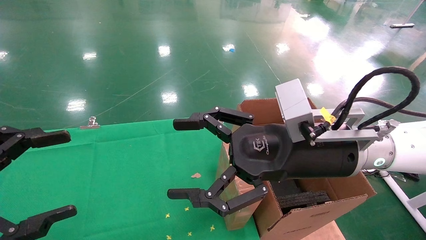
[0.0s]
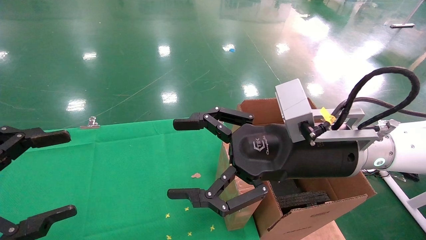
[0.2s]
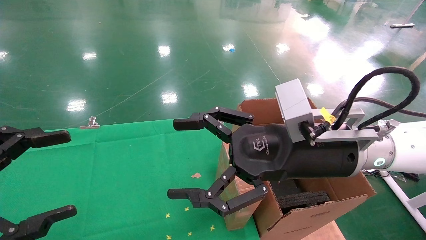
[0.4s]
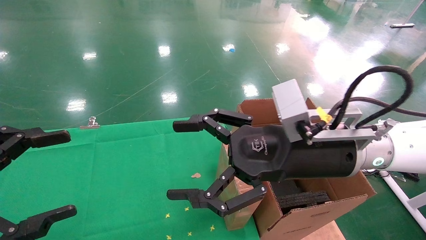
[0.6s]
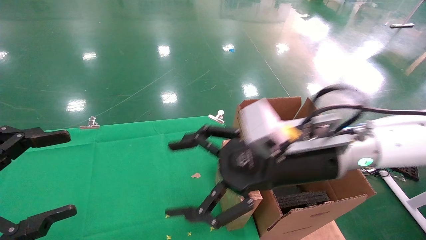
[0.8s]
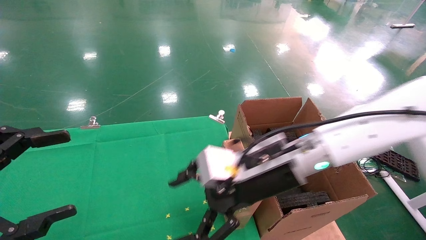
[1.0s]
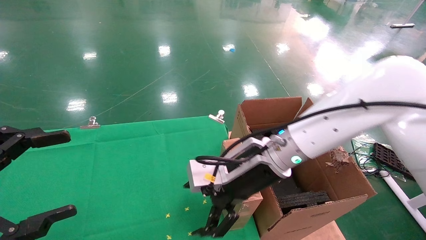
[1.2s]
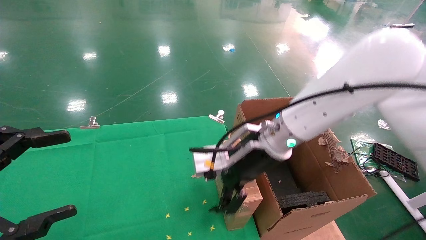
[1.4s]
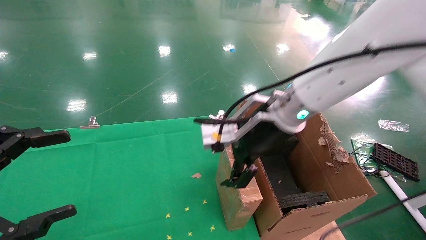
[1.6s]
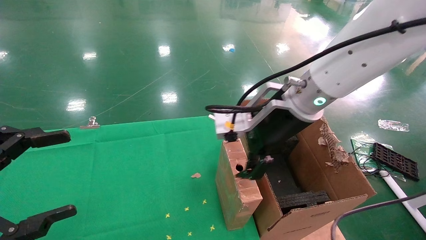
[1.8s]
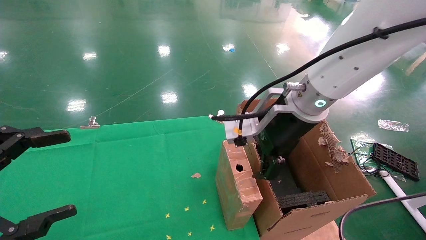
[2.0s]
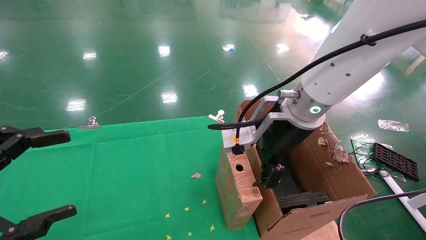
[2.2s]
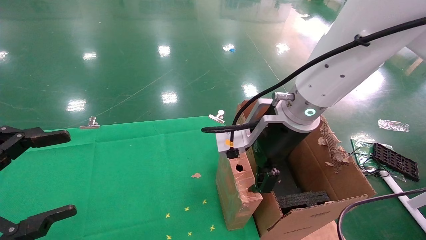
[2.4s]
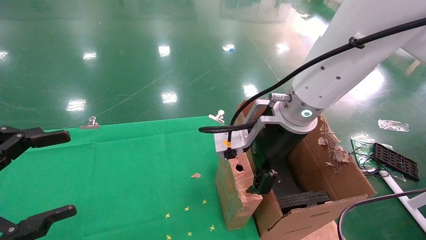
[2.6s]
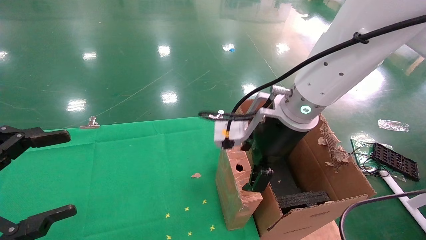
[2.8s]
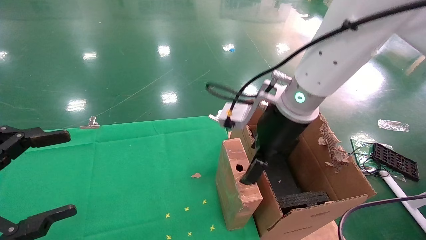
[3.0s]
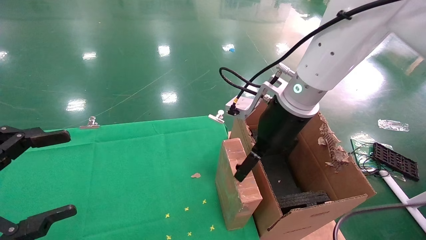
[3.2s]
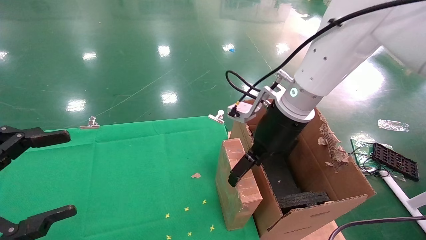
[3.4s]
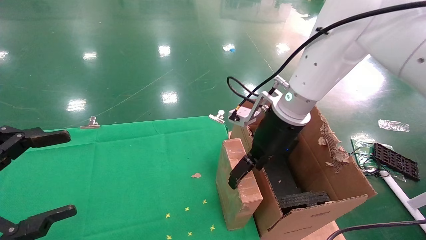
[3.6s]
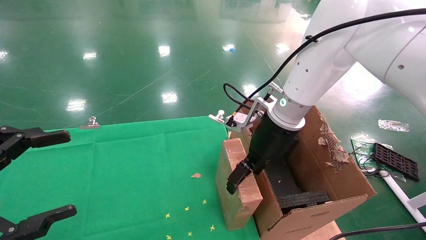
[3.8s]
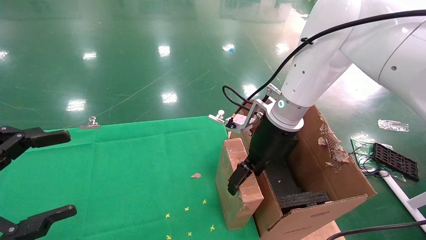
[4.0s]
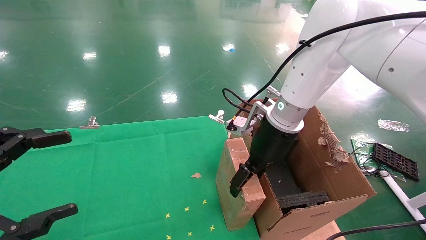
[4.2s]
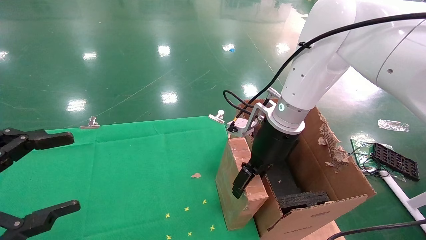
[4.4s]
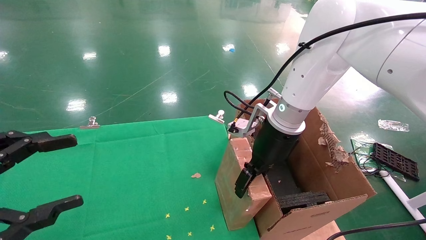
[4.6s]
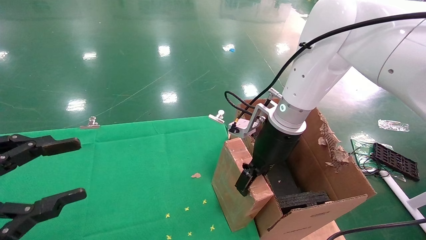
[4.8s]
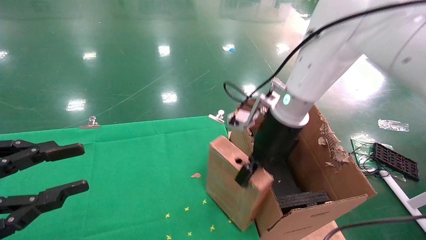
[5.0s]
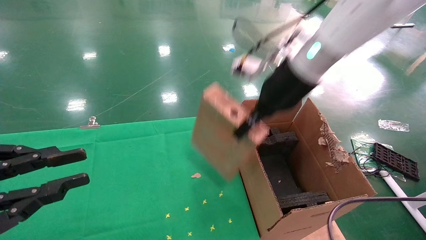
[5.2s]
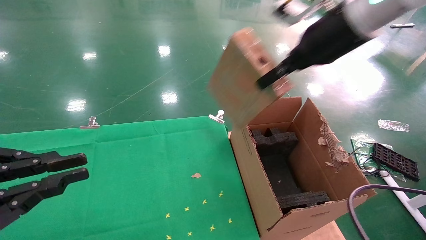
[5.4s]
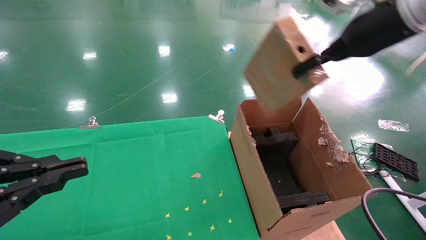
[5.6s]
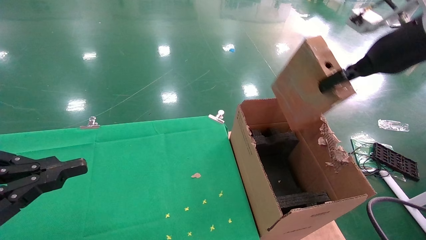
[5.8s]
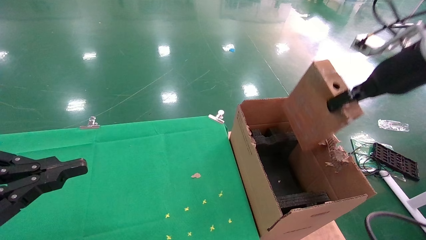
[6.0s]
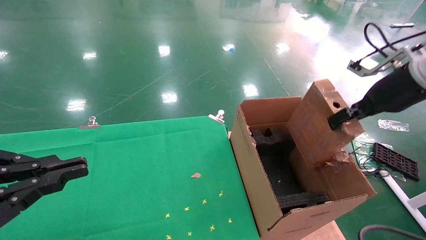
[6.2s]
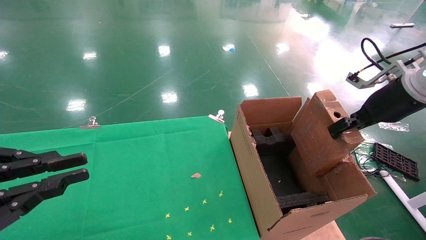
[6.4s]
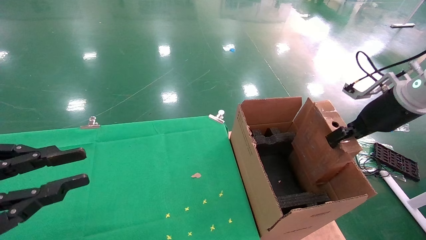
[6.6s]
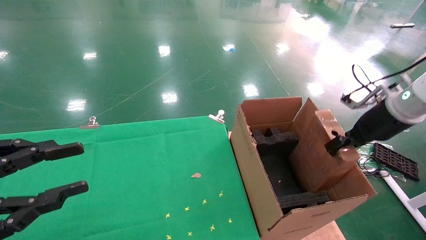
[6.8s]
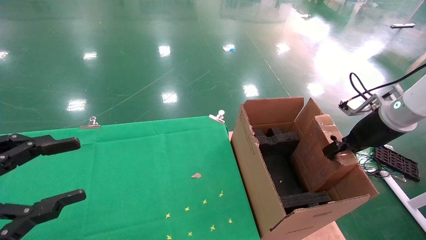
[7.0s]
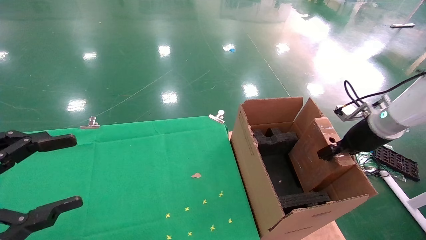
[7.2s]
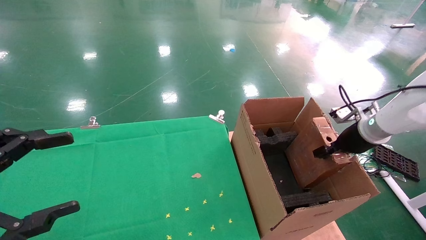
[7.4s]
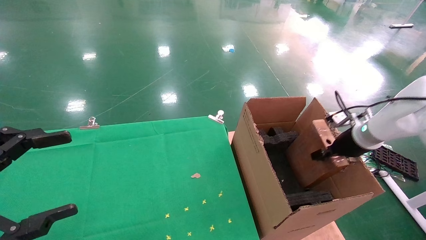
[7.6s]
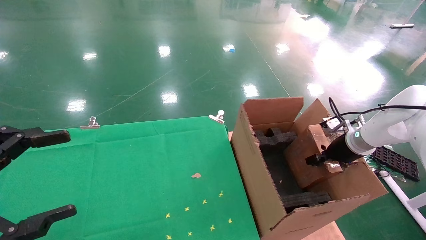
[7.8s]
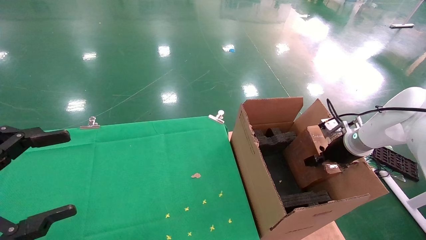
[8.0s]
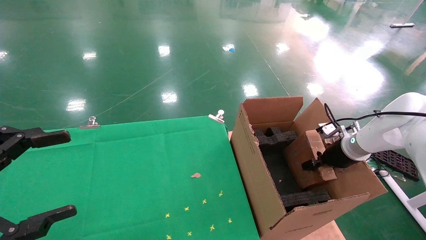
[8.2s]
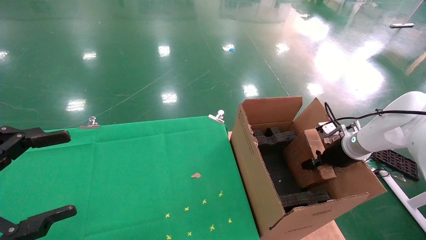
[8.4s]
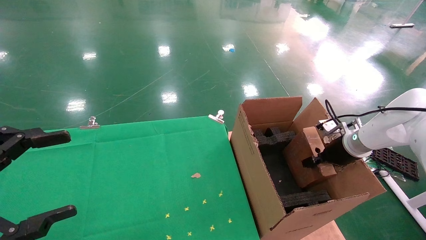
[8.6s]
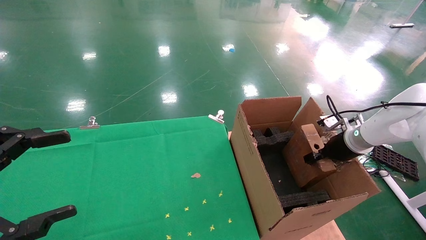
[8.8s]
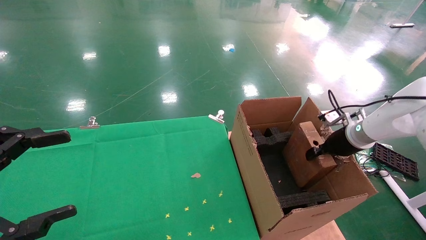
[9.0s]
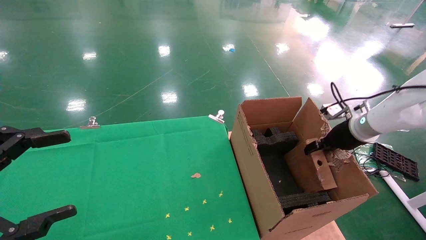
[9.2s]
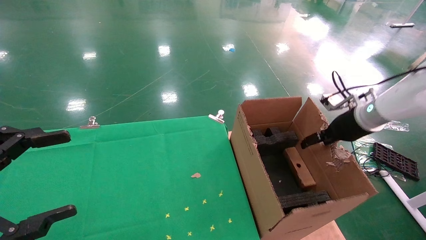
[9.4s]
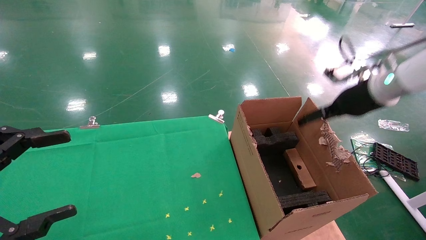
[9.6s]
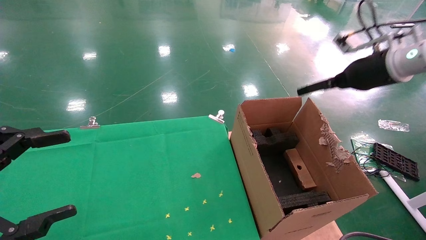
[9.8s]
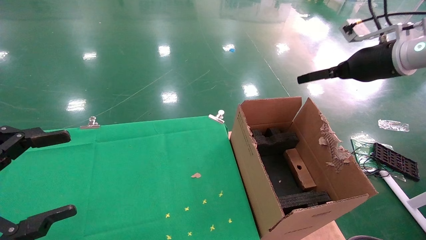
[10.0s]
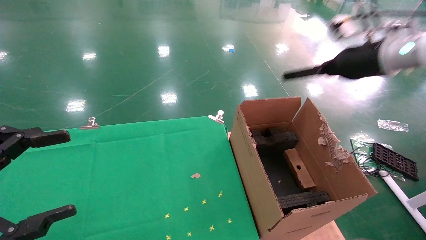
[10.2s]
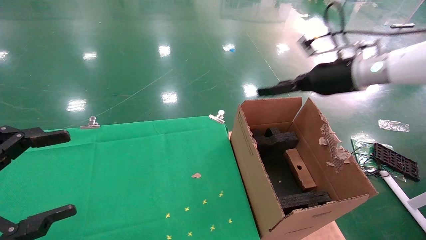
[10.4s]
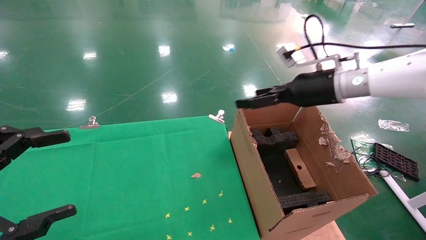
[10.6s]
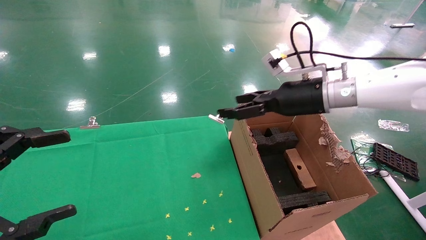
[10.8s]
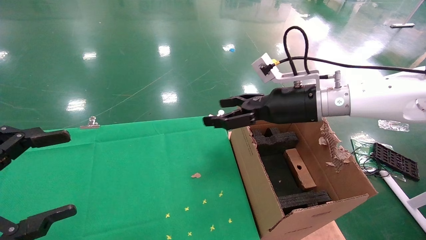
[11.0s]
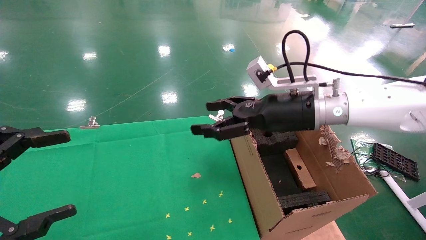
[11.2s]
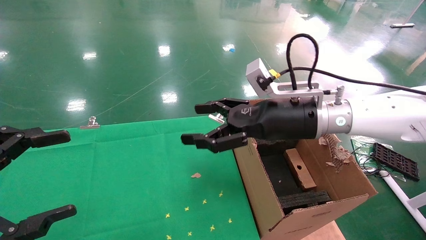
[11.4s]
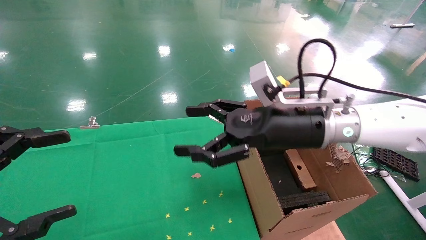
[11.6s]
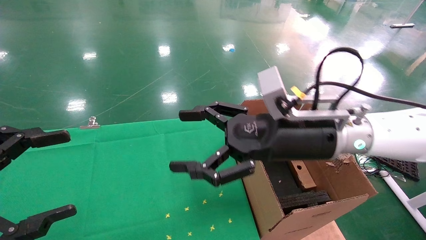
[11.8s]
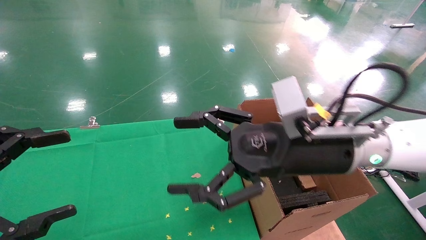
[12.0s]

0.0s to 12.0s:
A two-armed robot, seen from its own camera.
Task of the whole recording: using a robotic arm to pick up a cardboard box and palace it the carton.
Step, 0.8s to 5.2s: Pick up the mouse and the power cord paper box.
Step, 5.4s to 10.0s: Place the mouse and the power cord paper box into the container.
0.0s to 1.6s: The right gripper travels forward by some 10 cm.
3.0s to 4.4s: The right gripper ends up roughly 5 cm from where it was.
4.4s to 6.0s: The right gripper is displaced to the right and upward by approximately 25 cm, and closes up; the left gripper closes up.
6.0s to 7.6s: The left gripper opens its fingers, while the right gripper is displaced downward and forward by some 25 cm.
7.6s to 9.0s: The grippers stay close to where they were, moving slightly.
9.0s to 10.4s: The right gripper goes about 15 cm upward and to the left, and opens.
10.4s to 12.0s: The right gripper shifts about 20 cm to the left and backward.

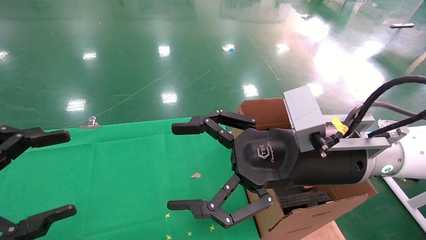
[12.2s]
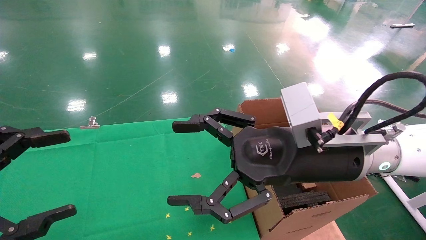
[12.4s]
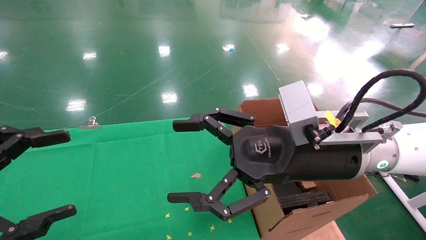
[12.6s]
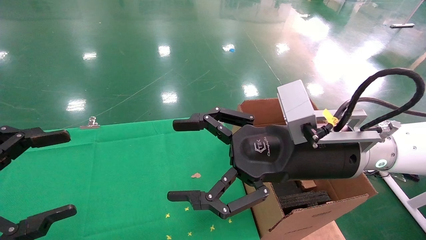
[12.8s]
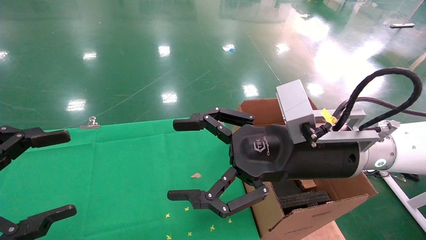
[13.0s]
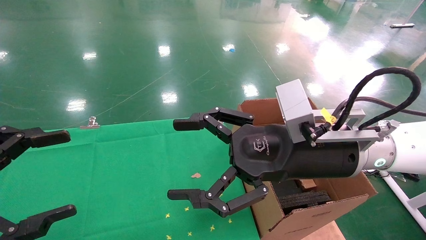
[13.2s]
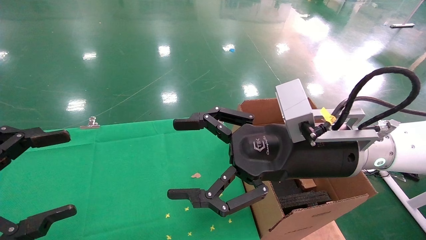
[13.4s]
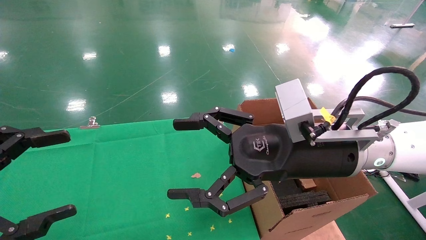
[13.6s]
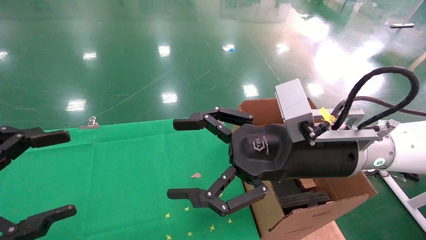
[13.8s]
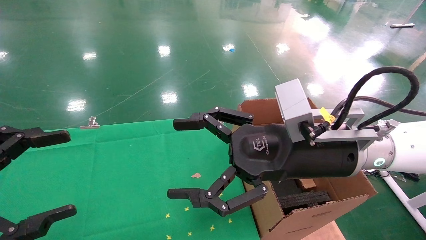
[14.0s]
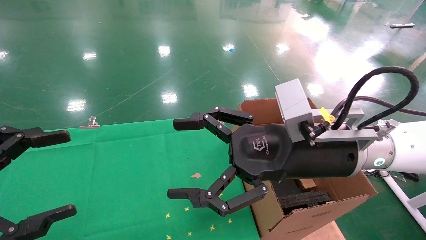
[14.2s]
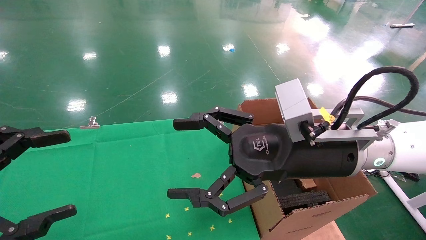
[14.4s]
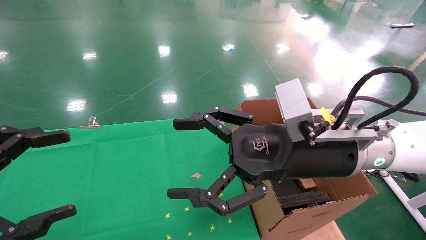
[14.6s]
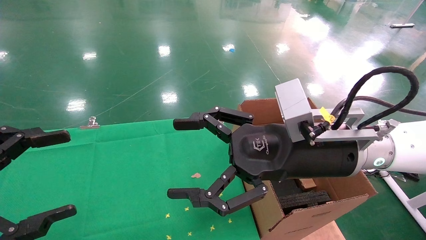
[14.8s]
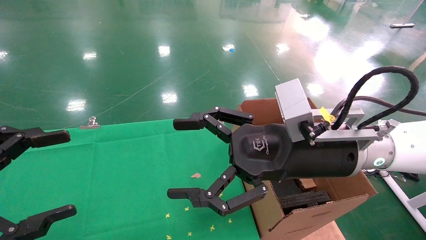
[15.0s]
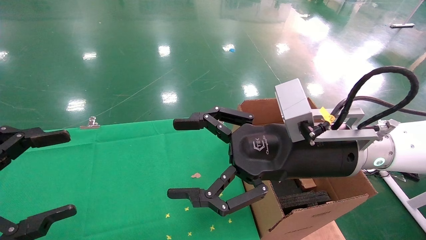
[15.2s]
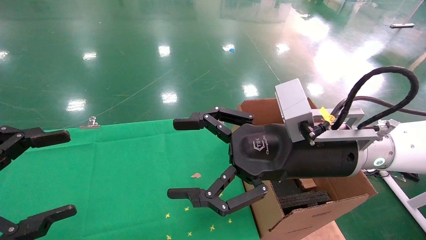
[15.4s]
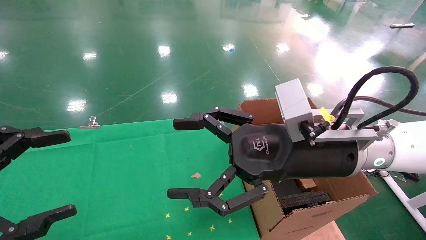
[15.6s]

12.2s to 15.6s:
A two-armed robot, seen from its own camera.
Task of the whole recording: using a robotic arm to pick up a cardboard box and palace it the carton.
12.2s to 15.6s: Neither gripper changes place.
